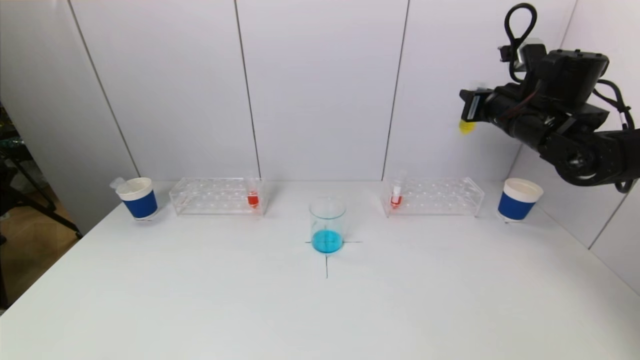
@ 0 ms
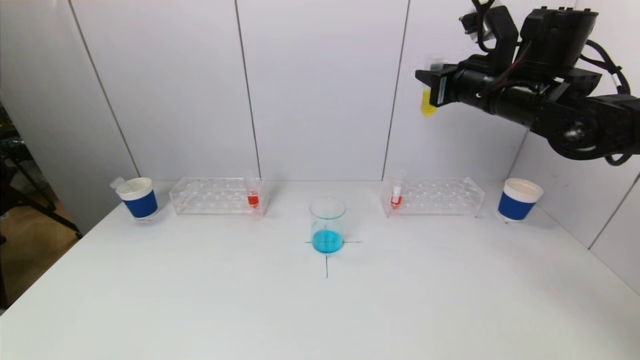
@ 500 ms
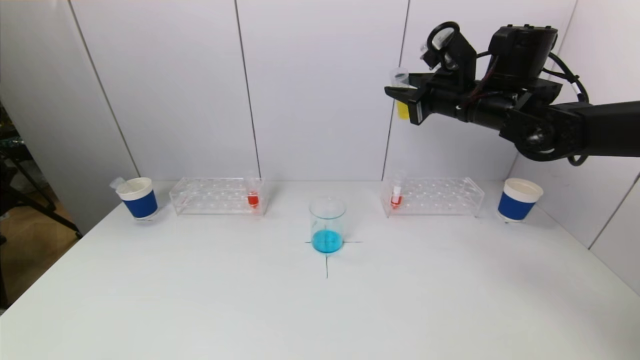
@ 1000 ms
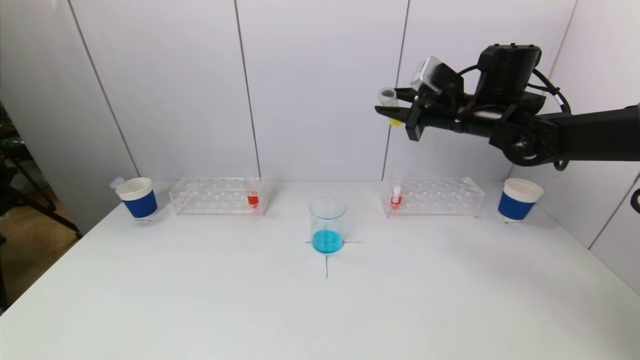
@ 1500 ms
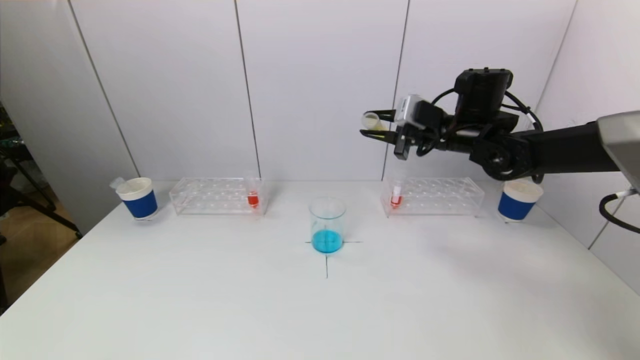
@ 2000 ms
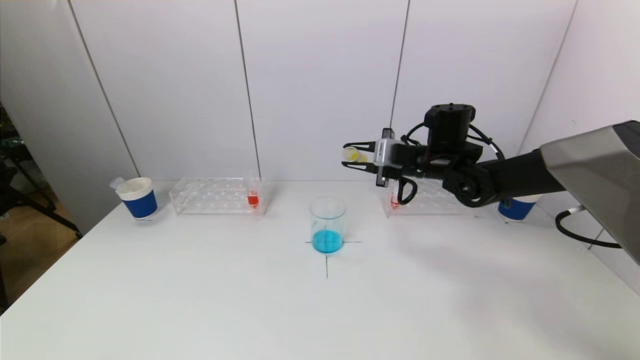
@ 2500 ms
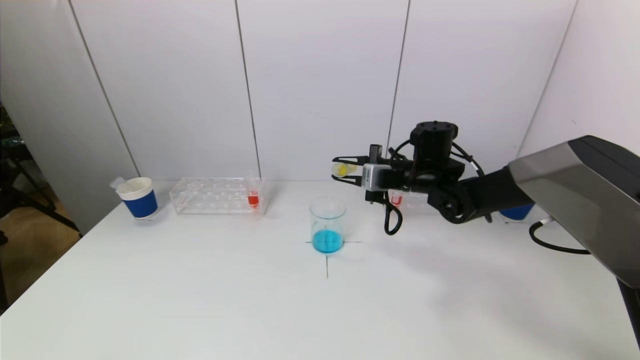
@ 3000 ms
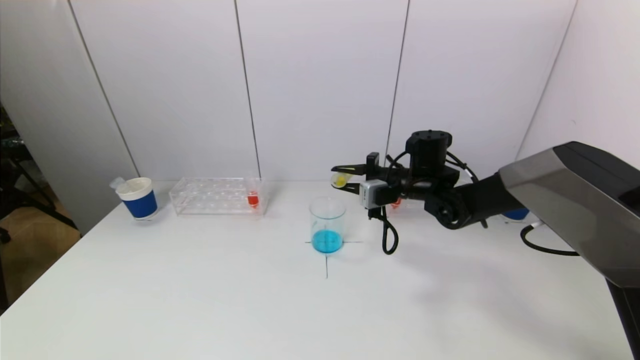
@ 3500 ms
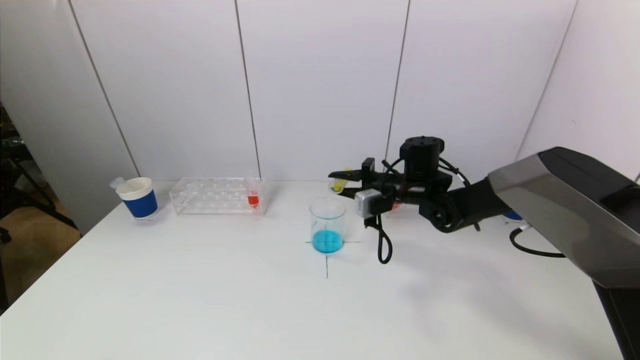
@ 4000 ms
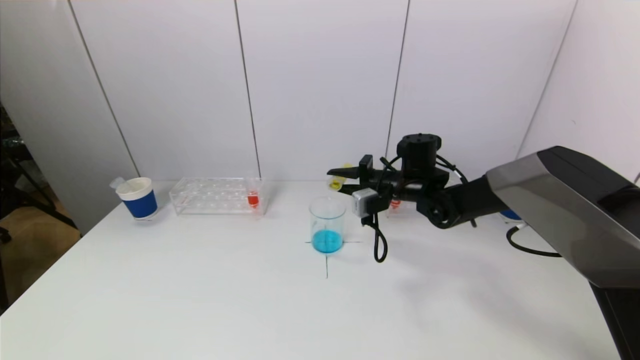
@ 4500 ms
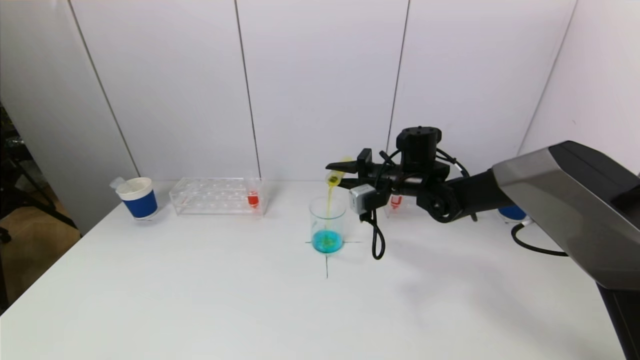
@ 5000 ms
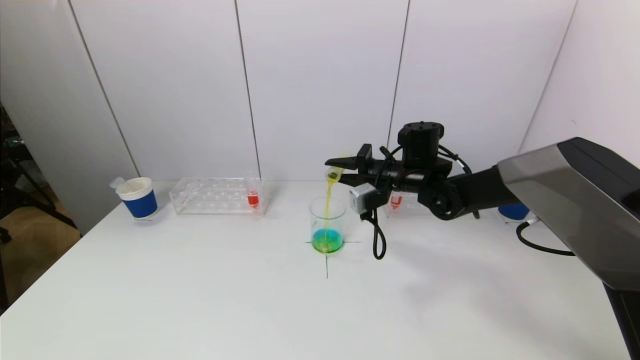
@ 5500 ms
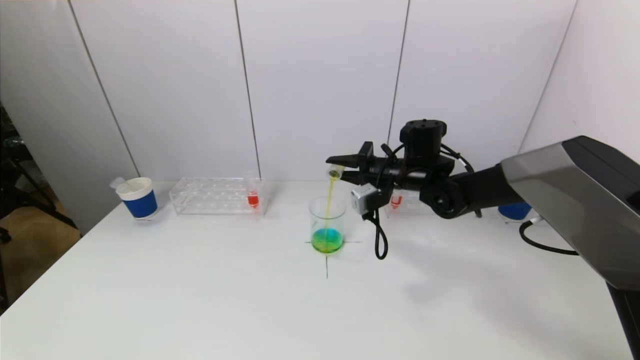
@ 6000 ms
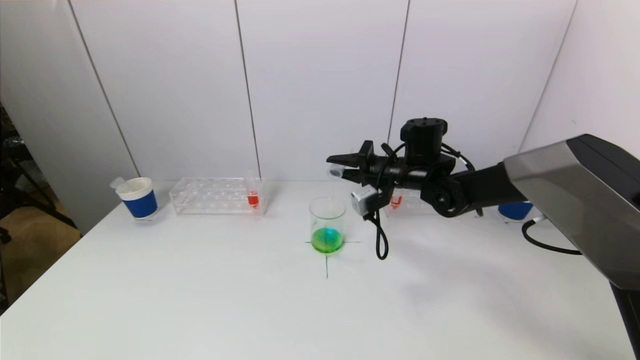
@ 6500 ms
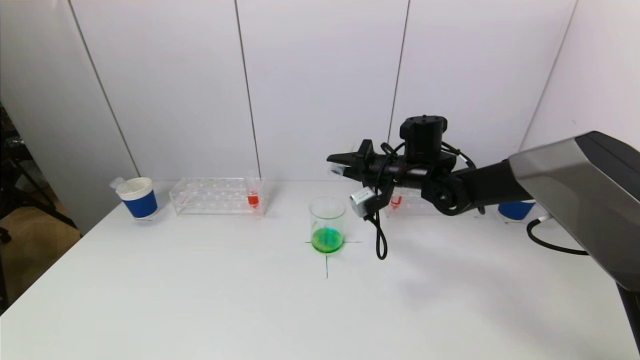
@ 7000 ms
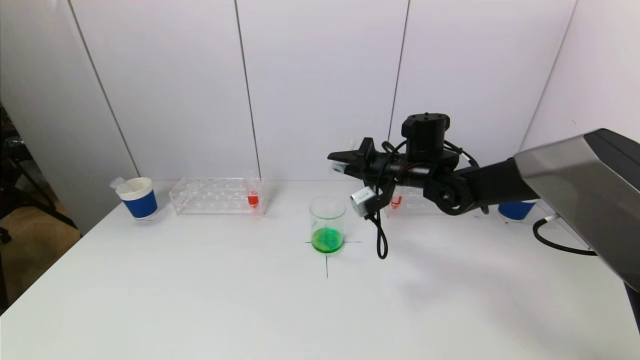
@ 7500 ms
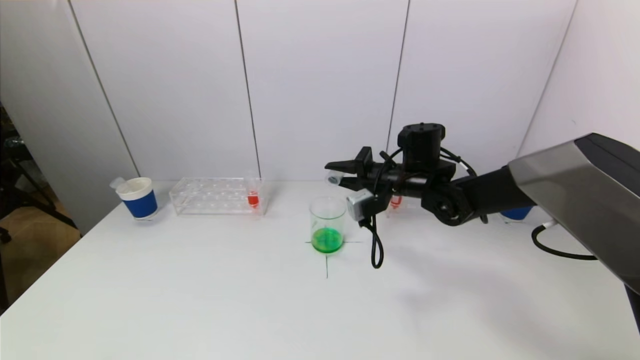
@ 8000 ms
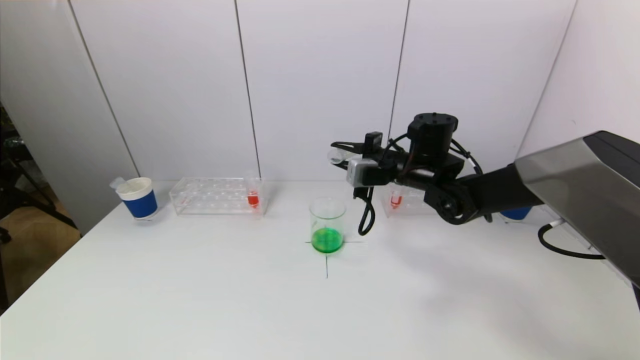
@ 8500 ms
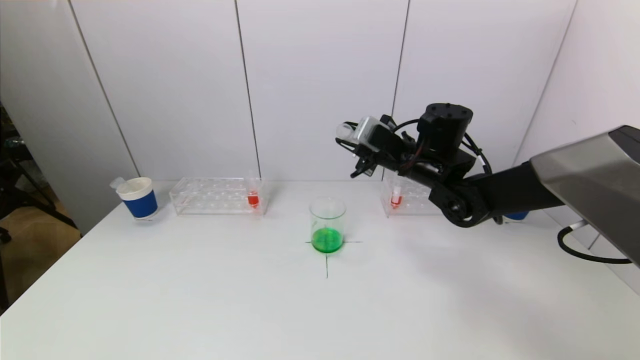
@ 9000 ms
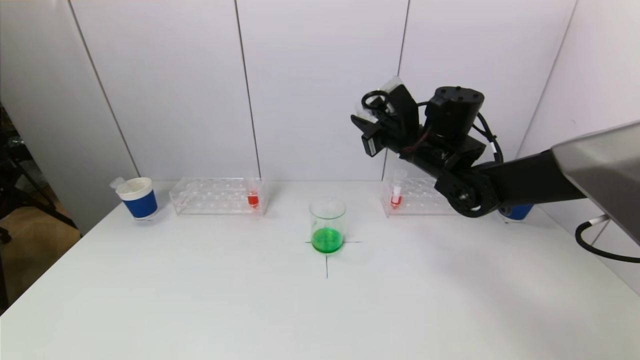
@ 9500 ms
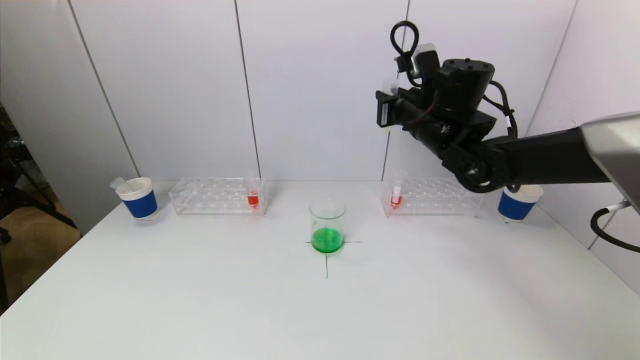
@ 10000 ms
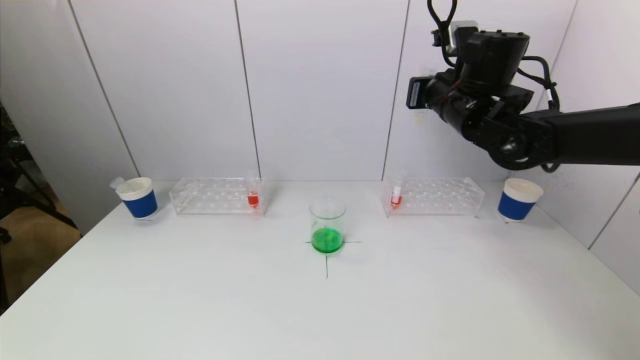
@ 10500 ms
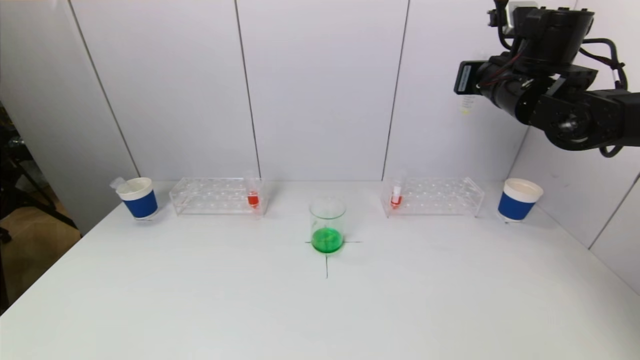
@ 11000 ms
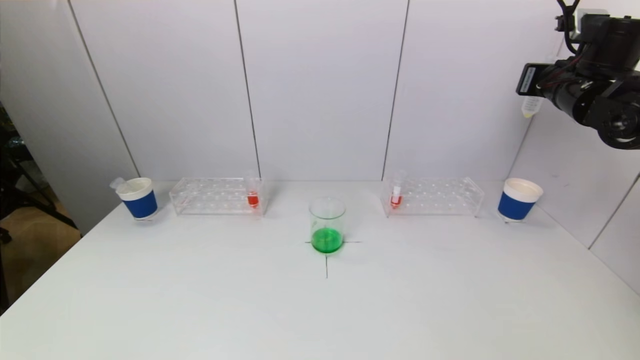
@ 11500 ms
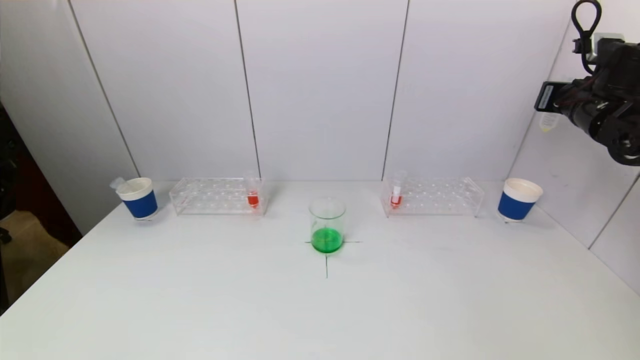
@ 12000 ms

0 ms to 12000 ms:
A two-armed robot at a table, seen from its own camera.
Task of the whole recording: pick up a test tube with pigment on left test tube rack and a test tube with pigment on right test tube rack by grippers and pour them into the beaker.
Step, 0 ms to 6500 ms: Pour the yellow reagent into the graduated cylinder with the right gripper.
0 ms to 2000 ms: The right gripper is displaced to the left by about 10 cm.
2000 ms to 4000 ms: The right gripper travels downward and to the left by about 10 cm.
4000 ms to 6000 ms: The grippers move only a little.
6000 ms to 8000 ms: The grippers move only a little.
8000 ms to 10000 ms: The right gripper goes roughly 10 cm upward.
10000 ms to 12000 ms: The right gripper goes approximately 25 cm to the right.

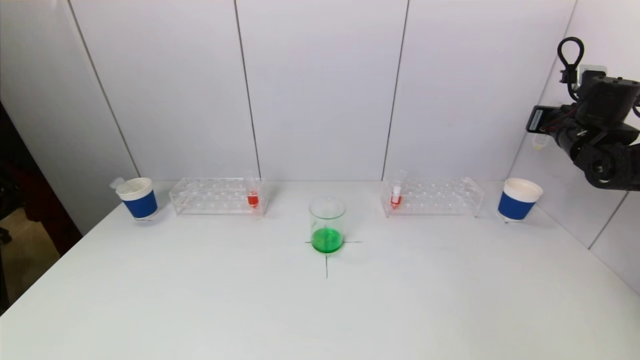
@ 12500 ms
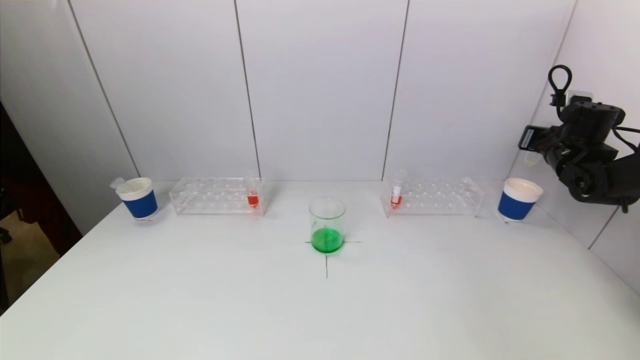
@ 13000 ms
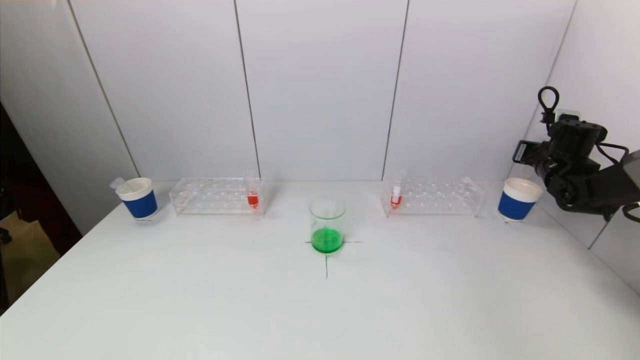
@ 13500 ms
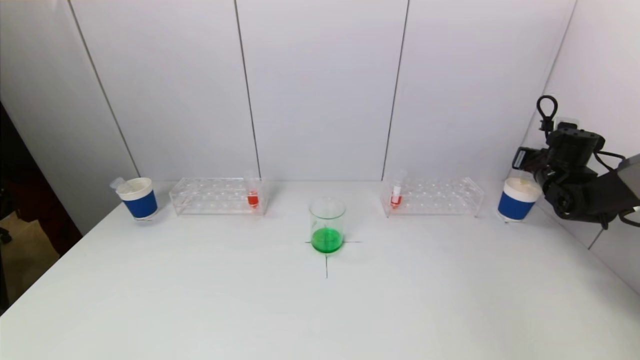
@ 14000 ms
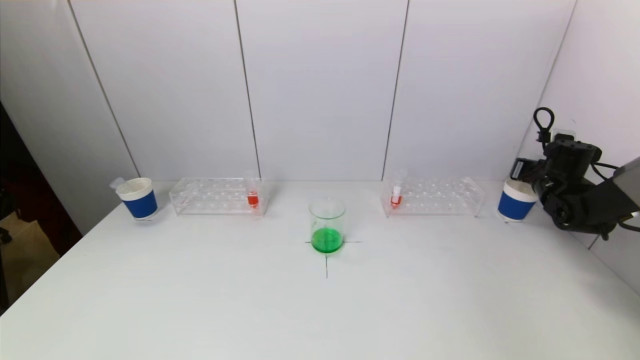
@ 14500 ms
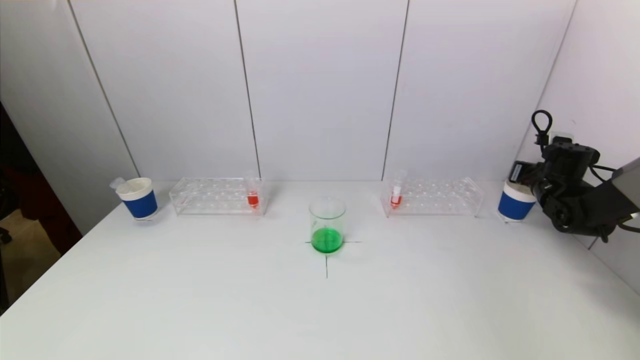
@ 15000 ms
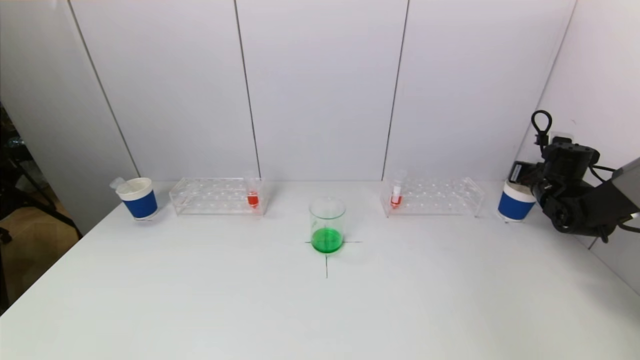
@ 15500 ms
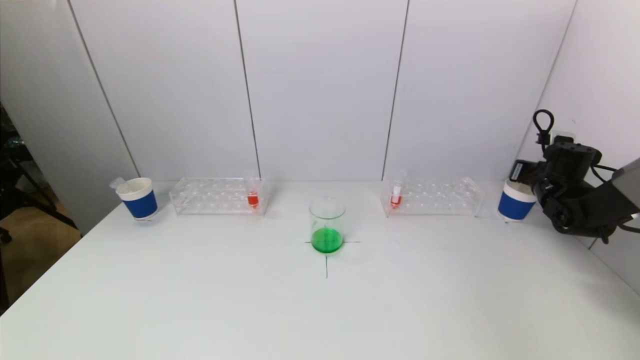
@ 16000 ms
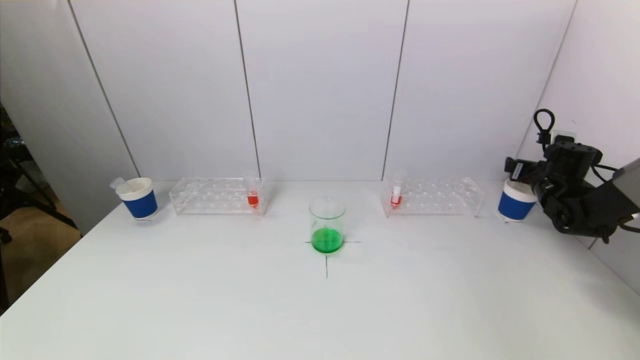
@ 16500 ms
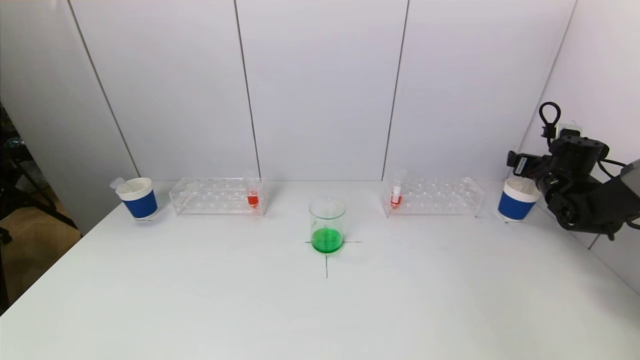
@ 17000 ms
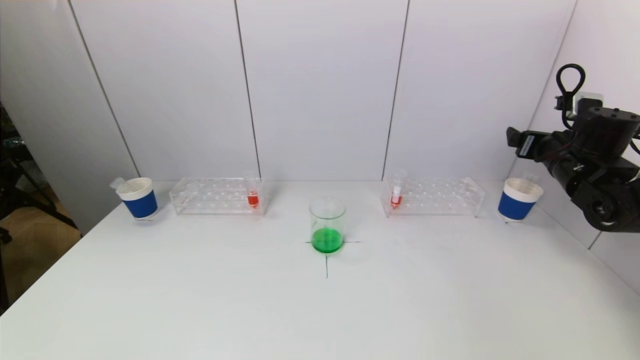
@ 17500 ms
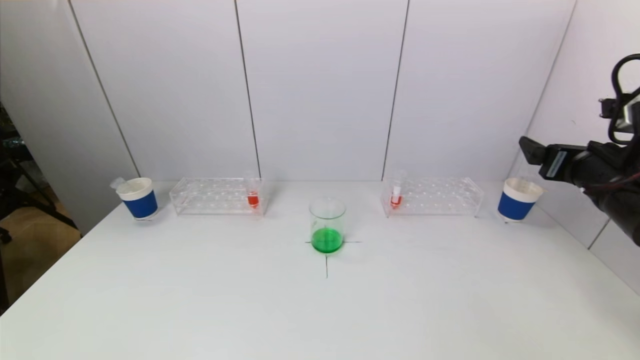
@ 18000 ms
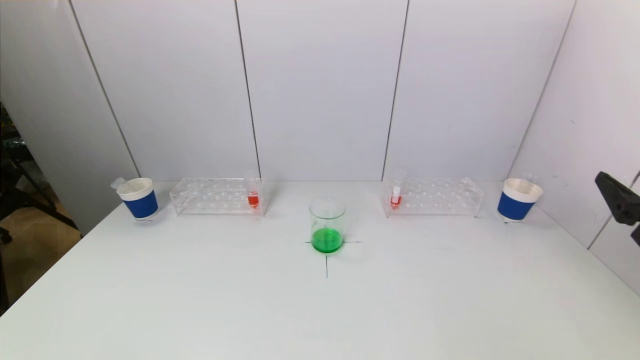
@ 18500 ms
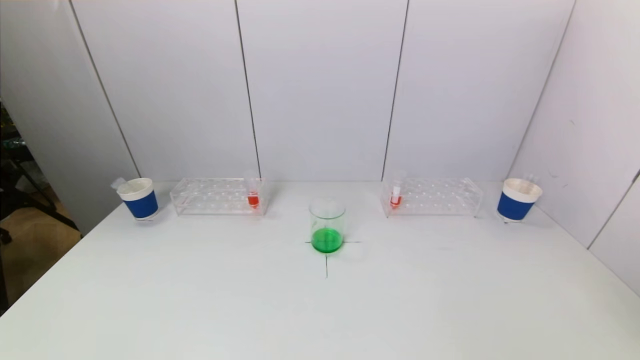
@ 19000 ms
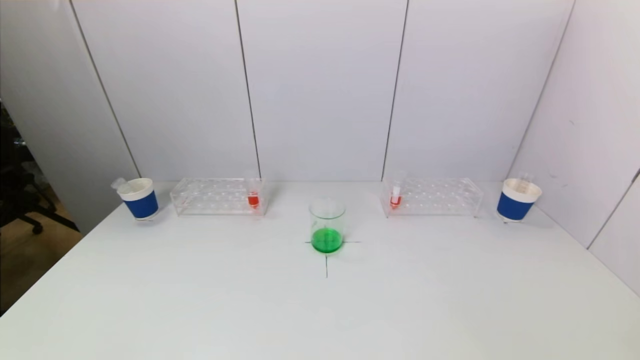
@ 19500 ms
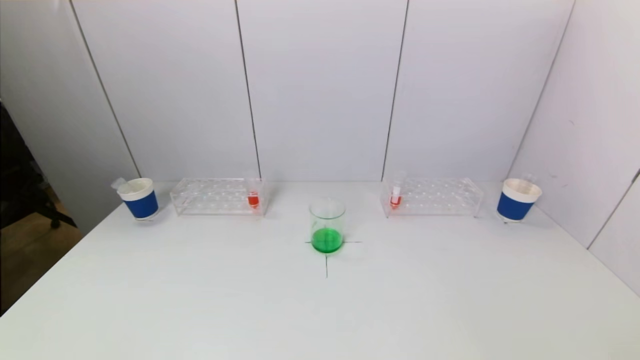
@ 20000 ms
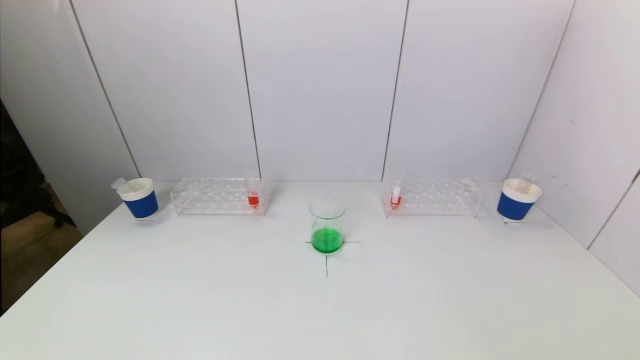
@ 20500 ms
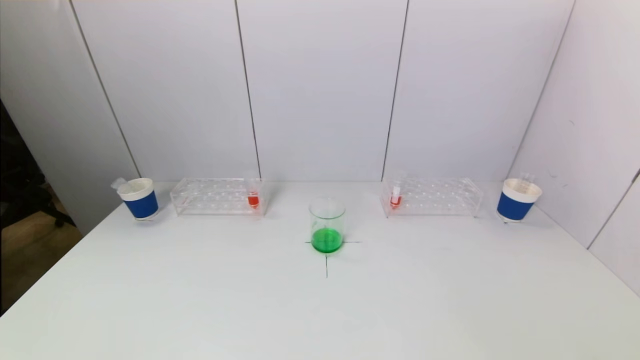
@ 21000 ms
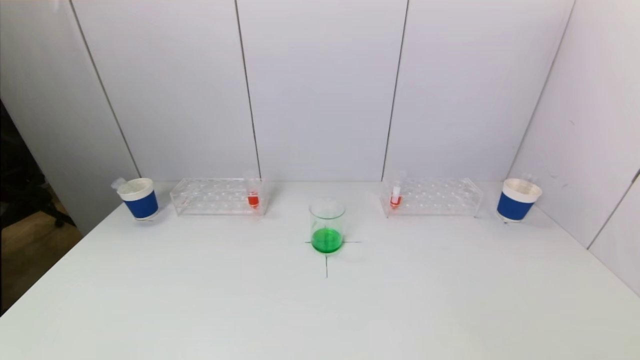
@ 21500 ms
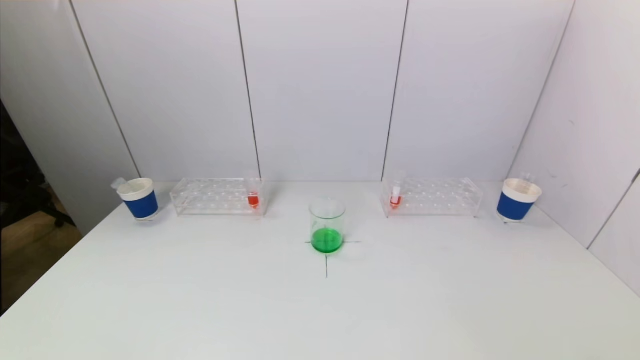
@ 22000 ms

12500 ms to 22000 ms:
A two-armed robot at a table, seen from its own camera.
Task of the whole recording: pick up a test tube with pigment on left test tube rack and a test tube with pigment on right test tube rack by grippers and pour them into the beaker.
Step, 12500 ms to 16500 ms: Place the test tube into the paper cup with the right gripper.
12500 ms to 14500 ms: The right gripper goes about 10 cm downward.
14500 ms to 16500 ms: The right gripper opens its fingers.
16500 ms to 18000 ms: The right gripper heads backward, upward and to the left, covering approximately 25 cm.
18000 ms to 20000 ms: The right gripper moves backward, roughly 30 cm.
